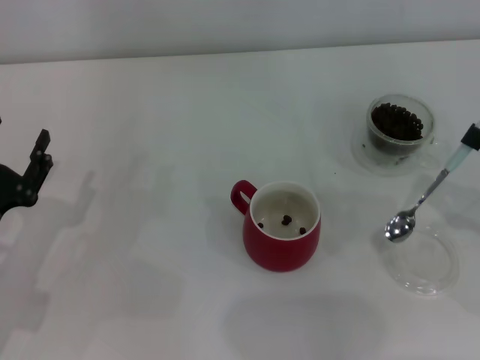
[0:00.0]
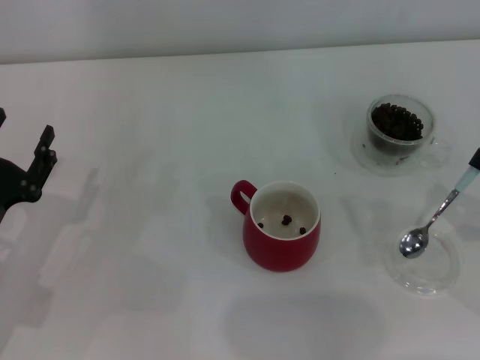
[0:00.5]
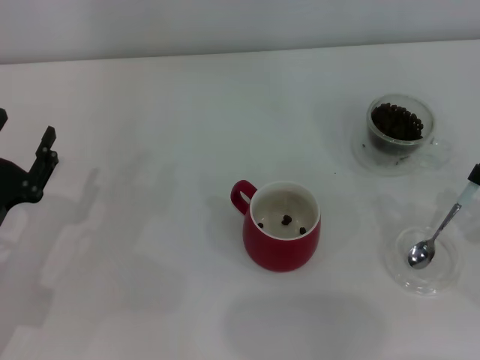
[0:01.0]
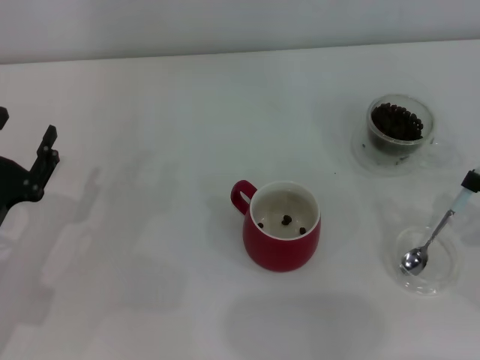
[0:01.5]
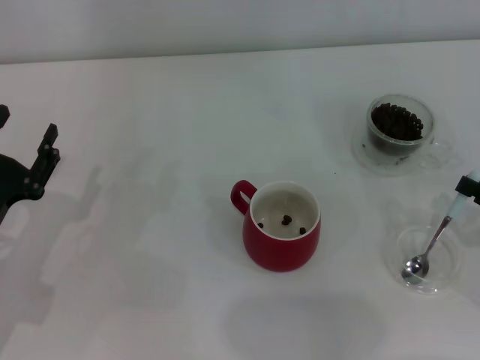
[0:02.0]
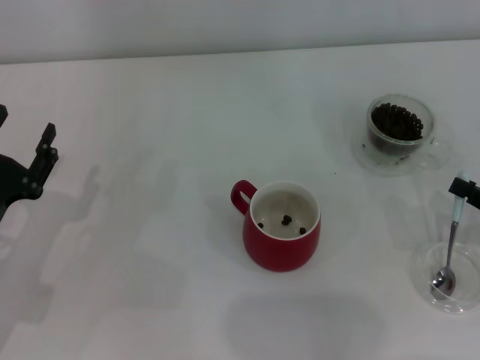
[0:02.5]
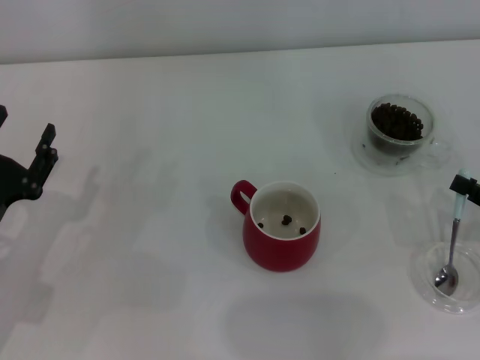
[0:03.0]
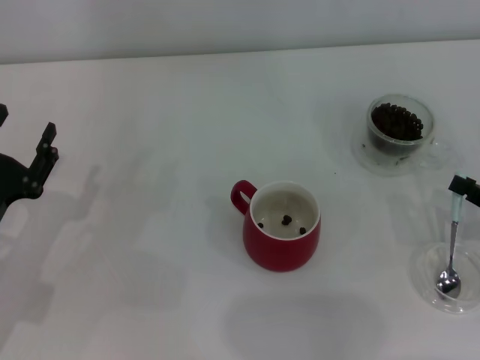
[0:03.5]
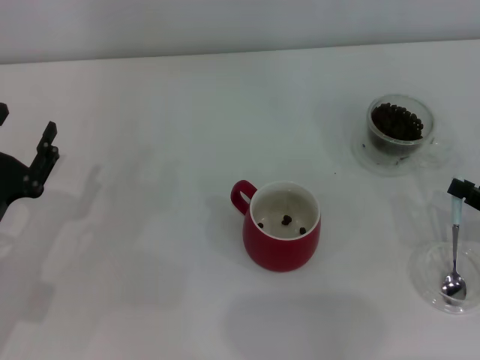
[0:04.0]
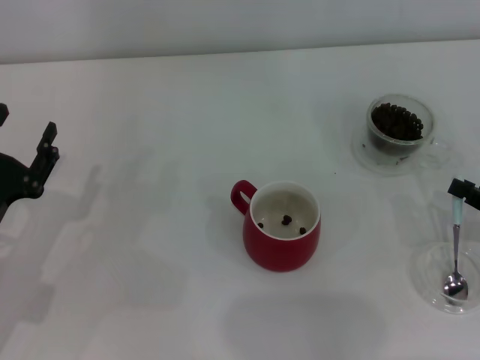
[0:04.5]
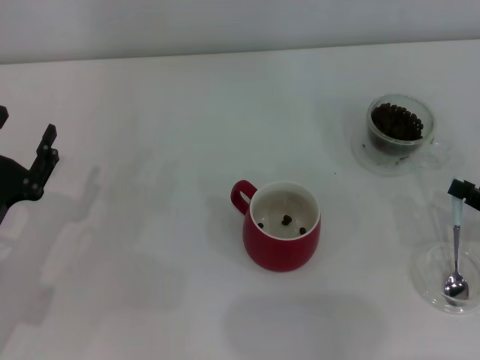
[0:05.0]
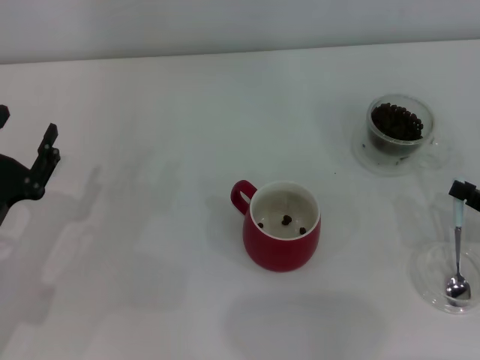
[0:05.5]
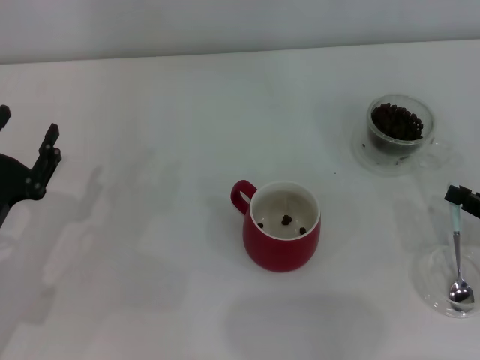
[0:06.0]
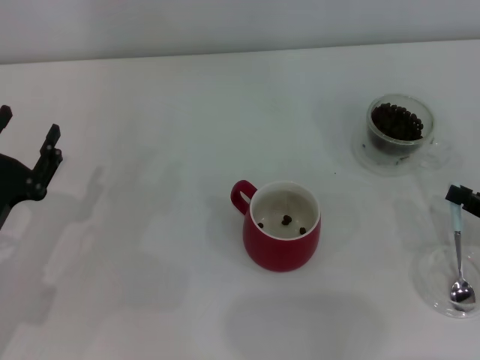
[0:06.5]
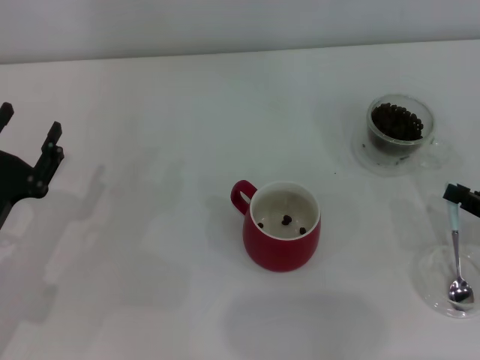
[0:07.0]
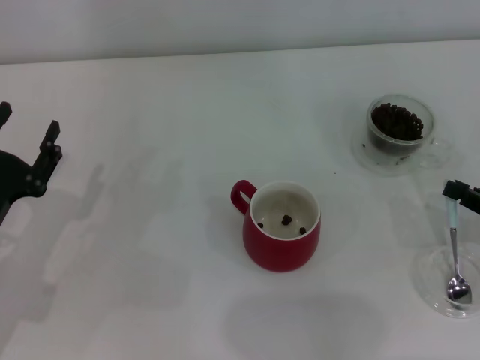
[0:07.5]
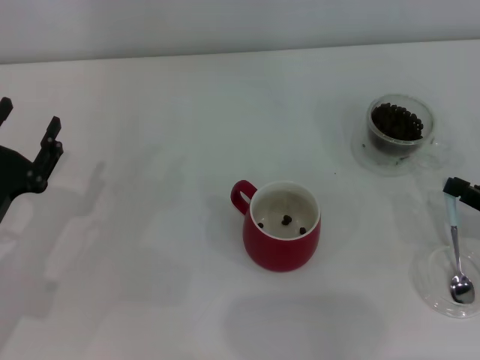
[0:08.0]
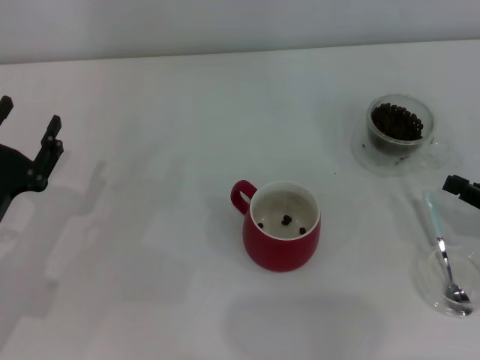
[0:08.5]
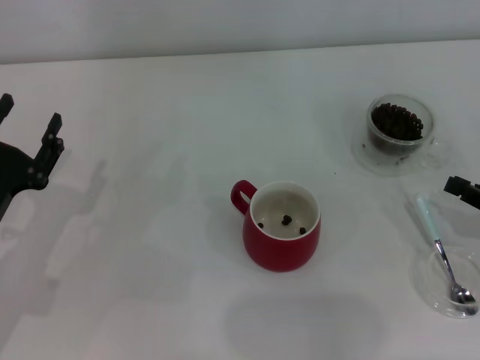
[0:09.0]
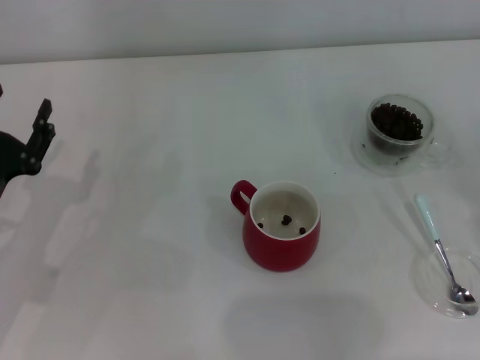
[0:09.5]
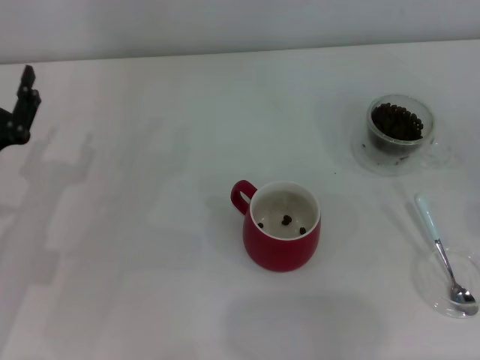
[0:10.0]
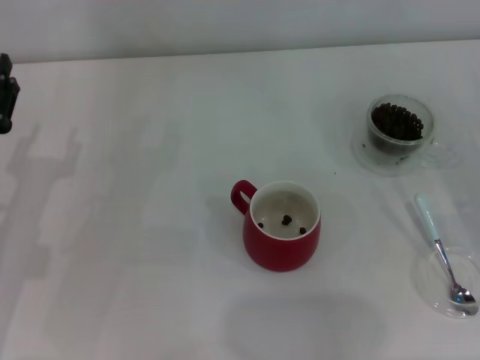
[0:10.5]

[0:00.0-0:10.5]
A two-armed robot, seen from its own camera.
Task of the whole recording: Use a blue spoon to take out the coffee beans from the glass and pour them into the red cup.
Step, 0:00.0 to 0:08.5: Place the spoon back in its original place with the right gripper.
0:00.0 to 0:02.0: The grippers stay close to where they were, moving slightly.
0:02.0 to 0:04.0: Both grippers stay about where they are.
0:04.0 to 0:08.5: The two grippers keep their place.
